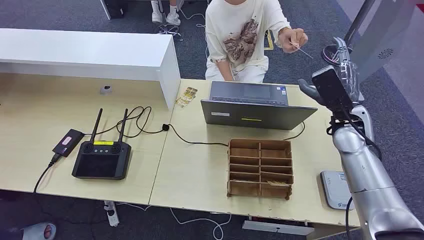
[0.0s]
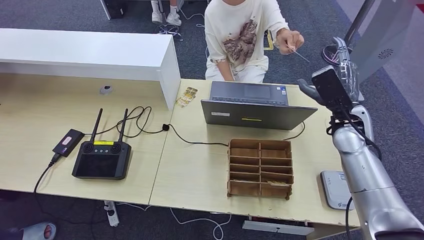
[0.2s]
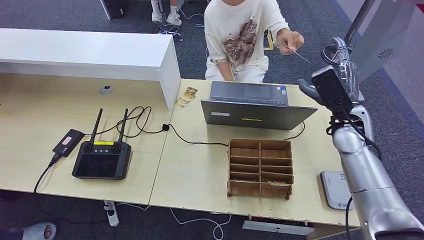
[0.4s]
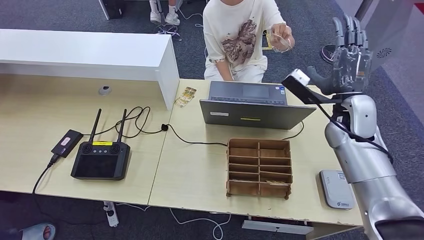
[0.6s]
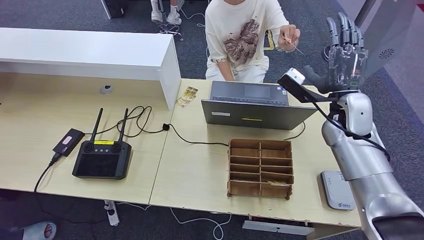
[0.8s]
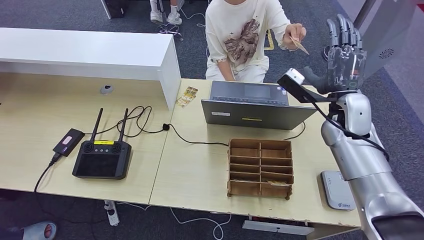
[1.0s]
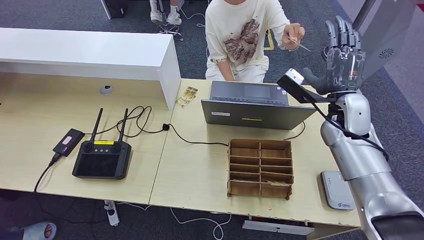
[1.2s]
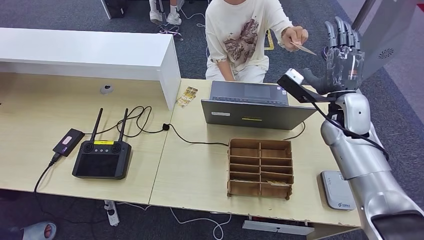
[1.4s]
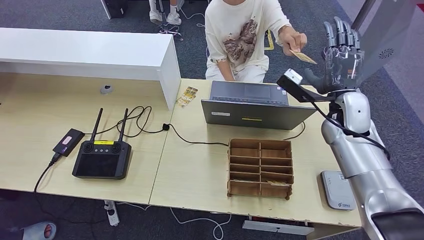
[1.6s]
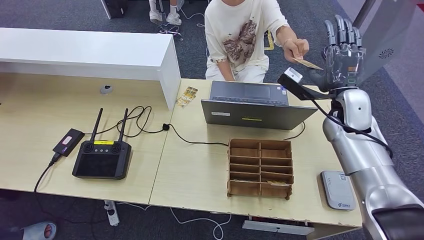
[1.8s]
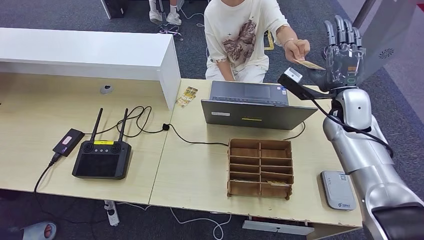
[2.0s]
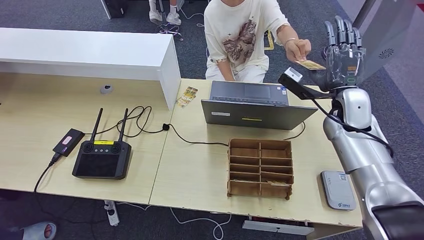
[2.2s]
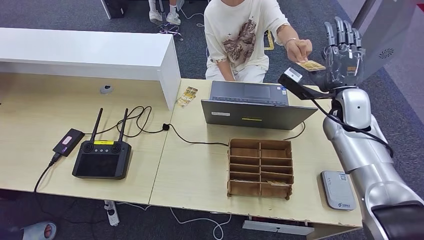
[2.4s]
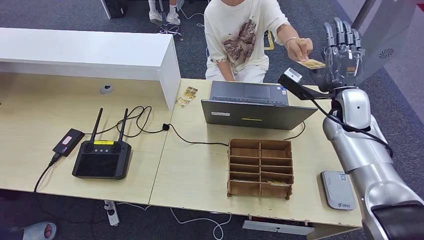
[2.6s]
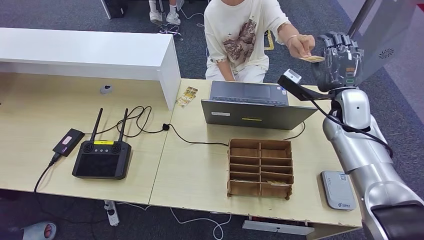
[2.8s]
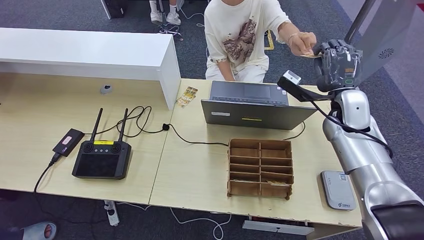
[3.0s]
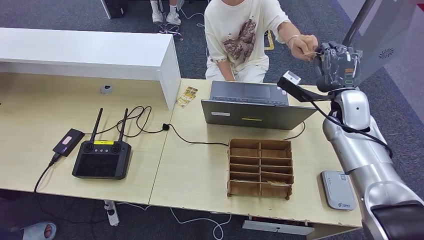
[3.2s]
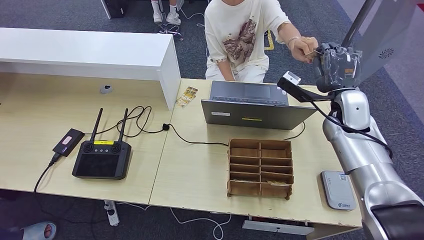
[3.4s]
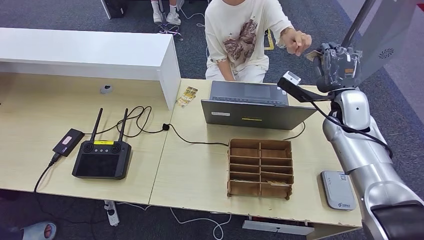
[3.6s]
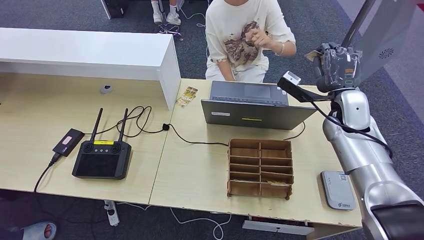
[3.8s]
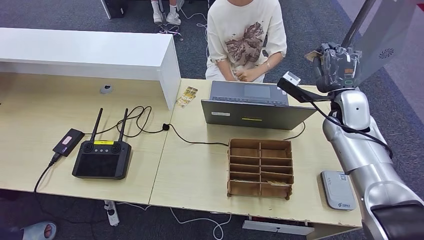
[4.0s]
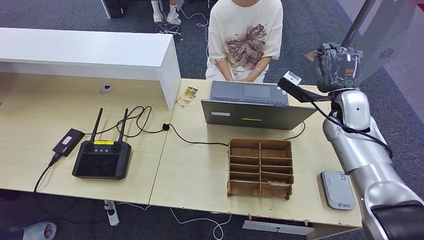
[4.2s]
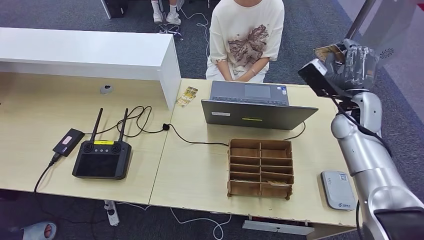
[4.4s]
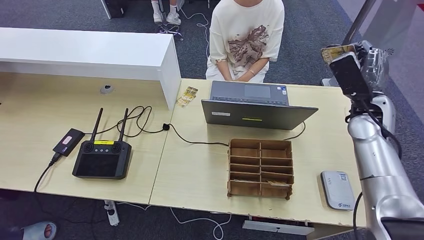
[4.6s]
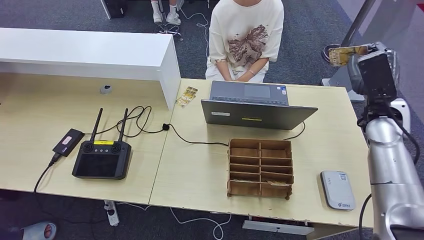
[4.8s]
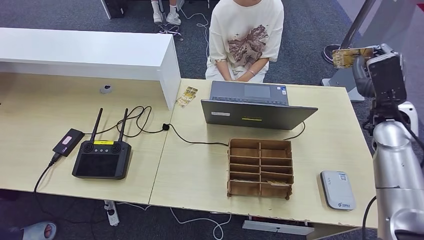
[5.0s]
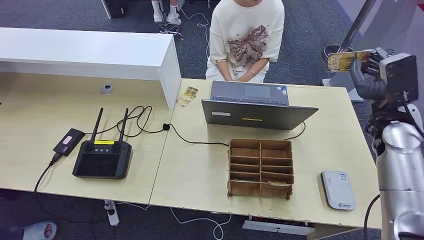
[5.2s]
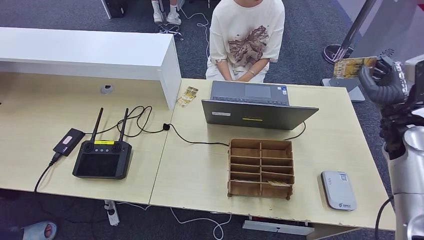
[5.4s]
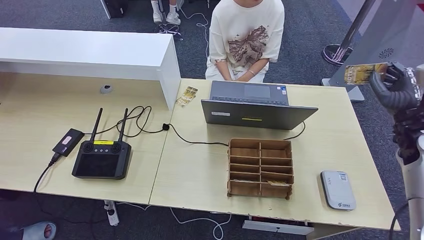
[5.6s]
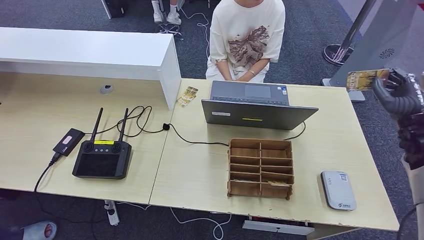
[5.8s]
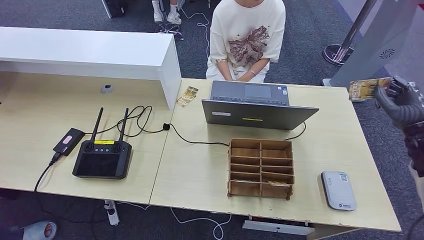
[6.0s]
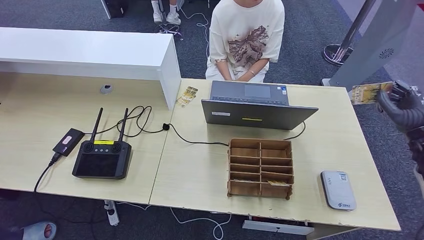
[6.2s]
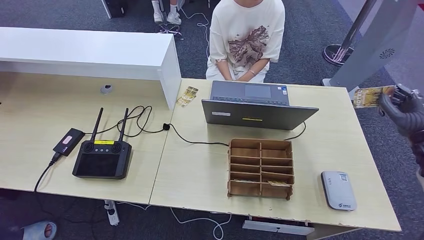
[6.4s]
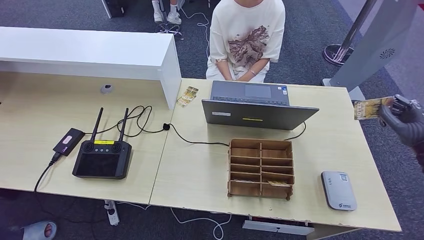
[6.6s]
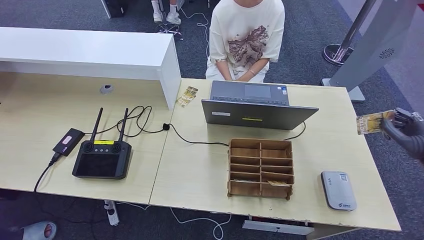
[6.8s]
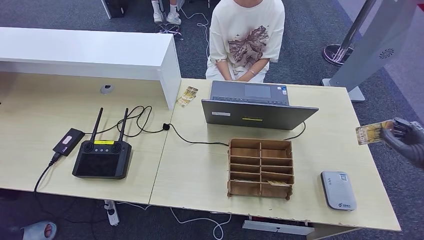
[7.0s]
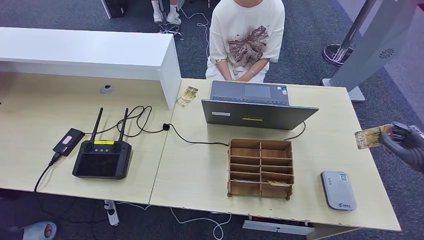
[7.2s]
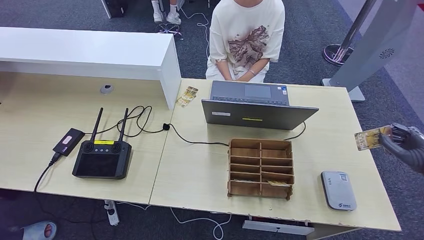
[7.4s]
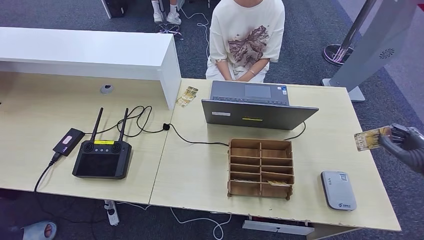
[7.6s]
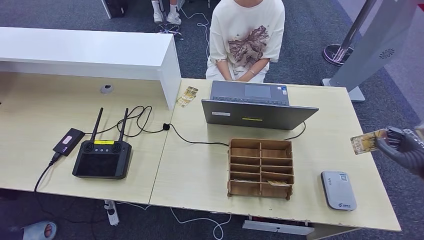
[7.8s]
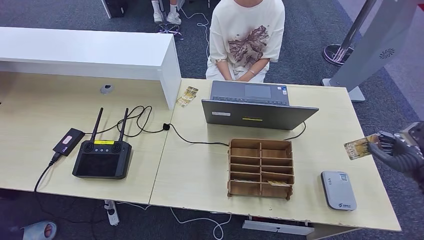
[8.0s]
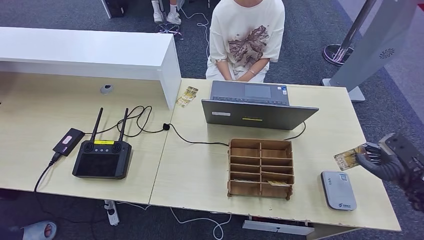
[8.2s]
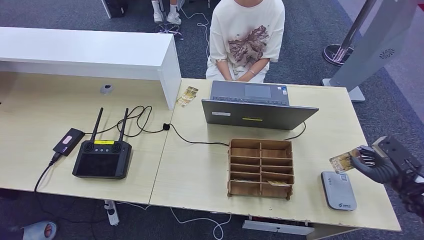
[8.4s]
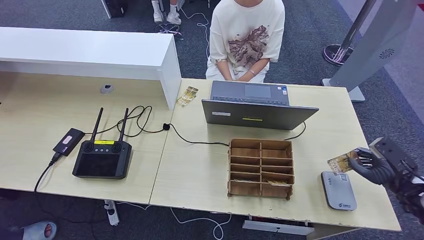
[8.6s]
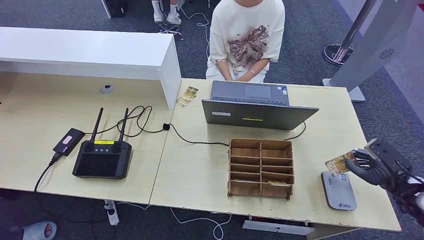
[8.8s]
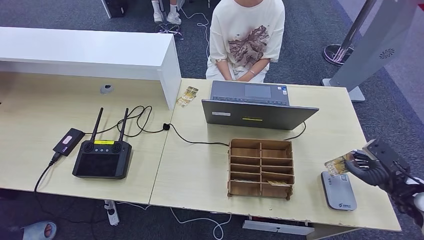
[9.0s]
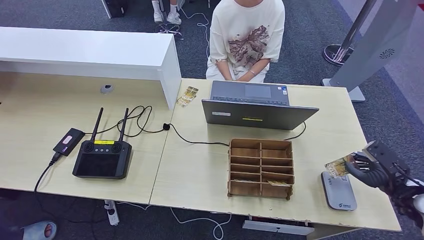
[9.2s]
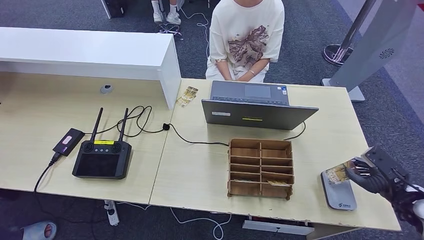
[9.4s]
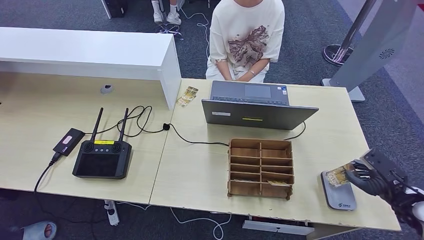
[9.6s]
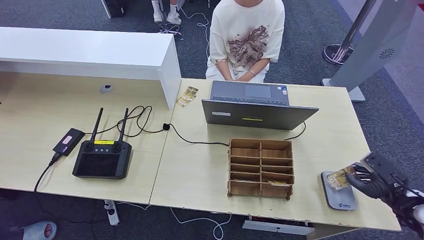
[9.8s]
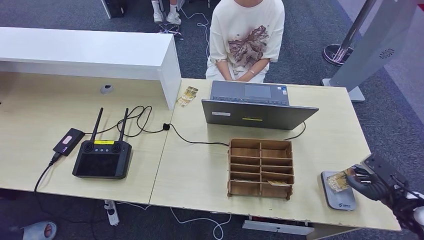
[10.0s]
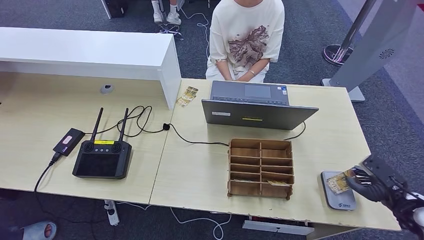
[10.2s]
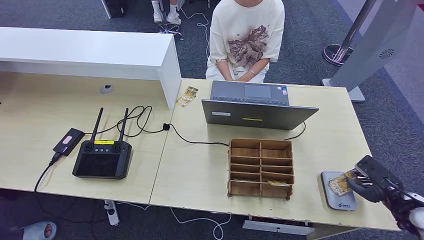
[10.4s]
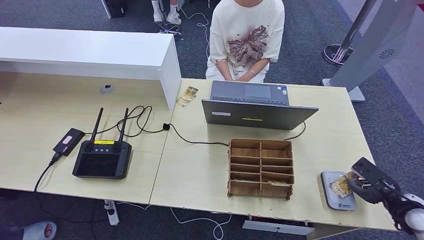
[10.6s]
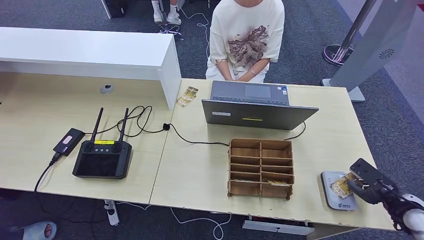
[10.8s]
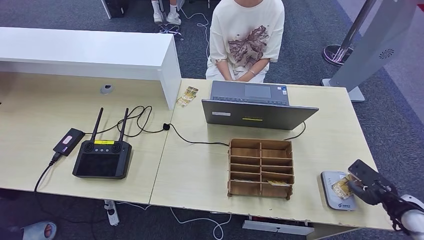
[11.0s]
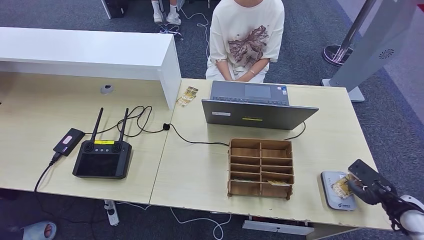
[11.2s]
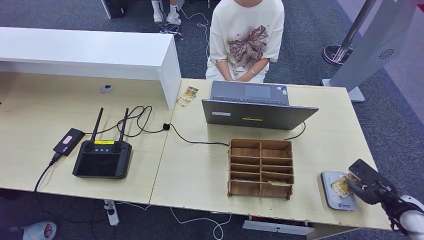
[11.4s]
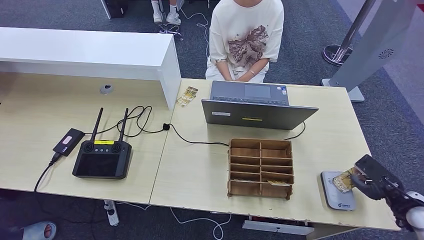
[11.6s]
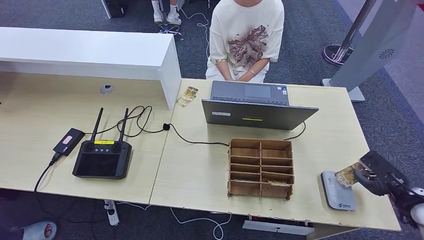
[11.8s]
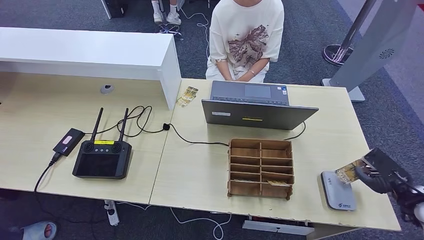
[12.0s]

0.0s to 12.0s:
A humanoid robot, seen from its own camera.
Step, 0.0s to 3.6s: Take the ID card from the person's hand.
Step, 3.8s to 11.4s: Place the ID card on the card reader.
1.6s to 4.4s: The hands make only small movements.
4.4s to 6.0s: The right hand moves to the right and backward, about 15 cm.
6.0s to 7.6s: The right hand heads backward and to the right, covering some 10 cm.
7.6s to 9.0s: The right hand goes approximately 5 cm downward.
9.0s to 10.4s: The hands make only small movements.
10.4s to 12.0s: The hands make only small movements.

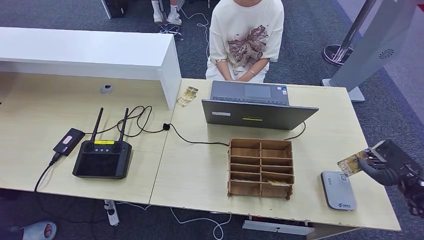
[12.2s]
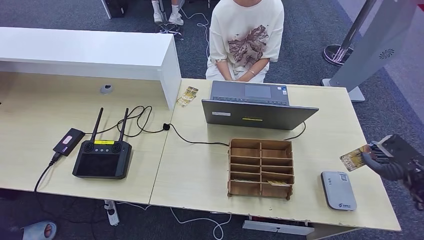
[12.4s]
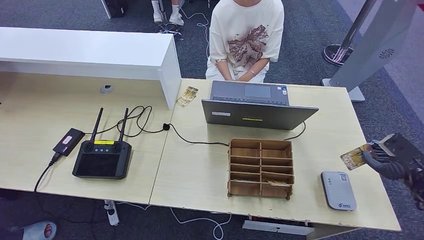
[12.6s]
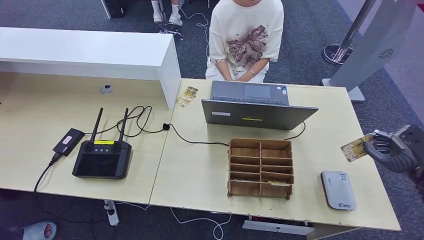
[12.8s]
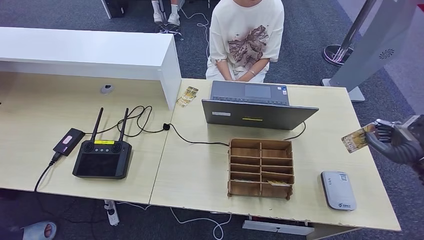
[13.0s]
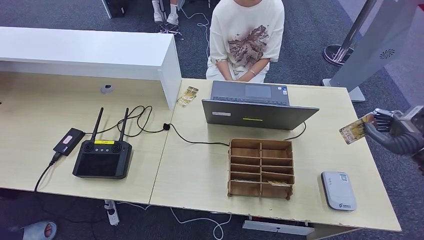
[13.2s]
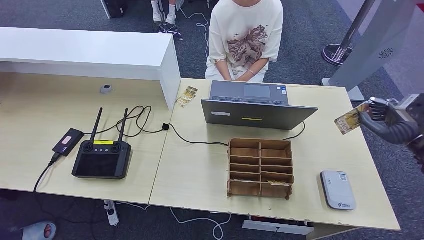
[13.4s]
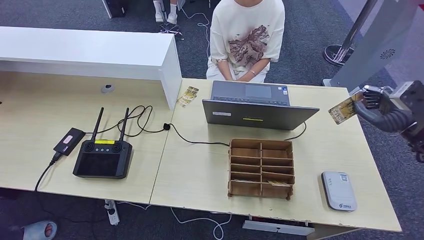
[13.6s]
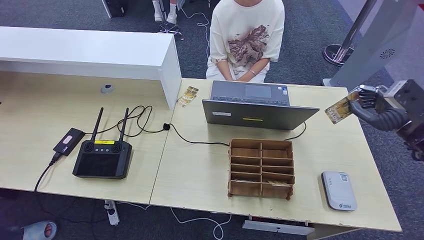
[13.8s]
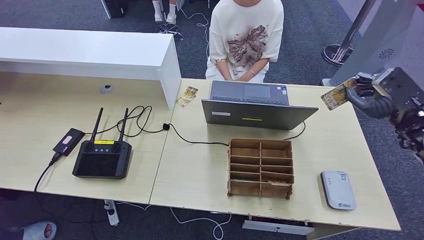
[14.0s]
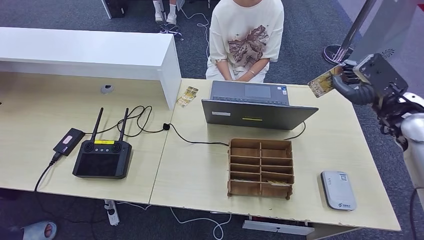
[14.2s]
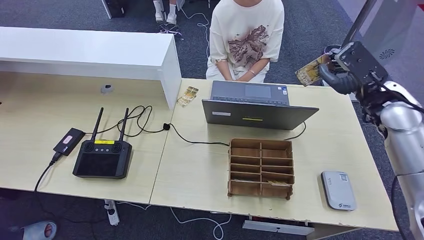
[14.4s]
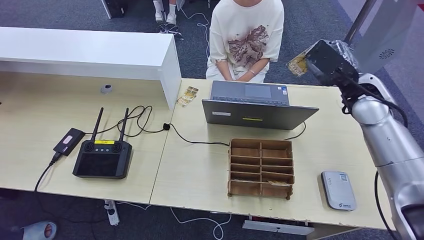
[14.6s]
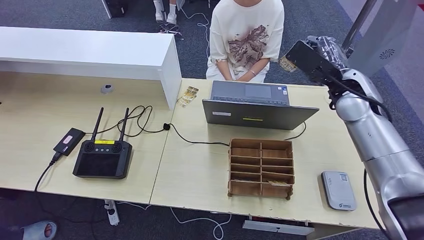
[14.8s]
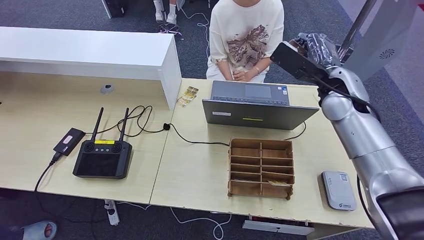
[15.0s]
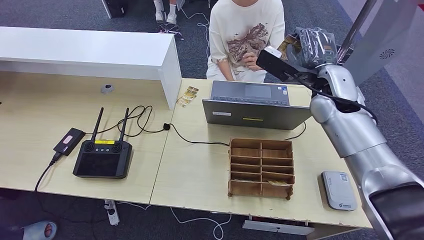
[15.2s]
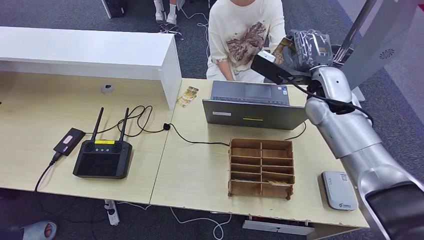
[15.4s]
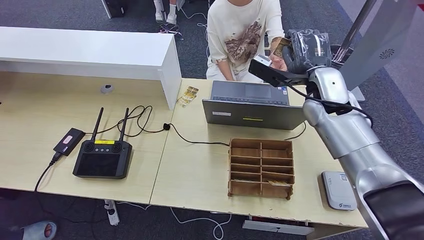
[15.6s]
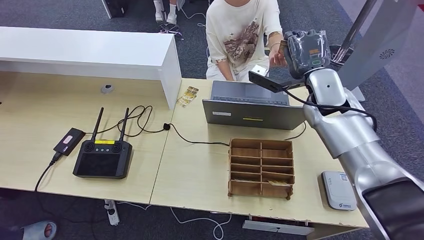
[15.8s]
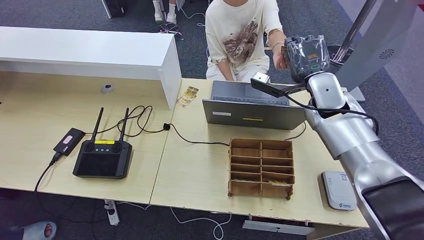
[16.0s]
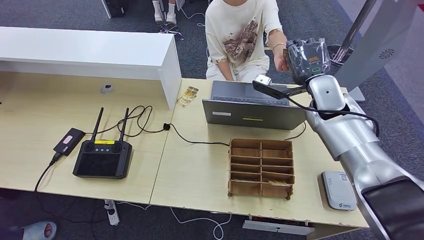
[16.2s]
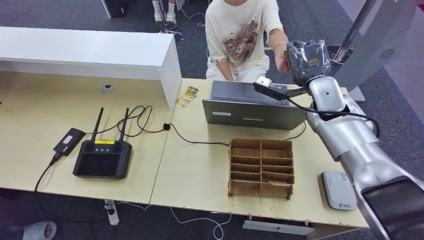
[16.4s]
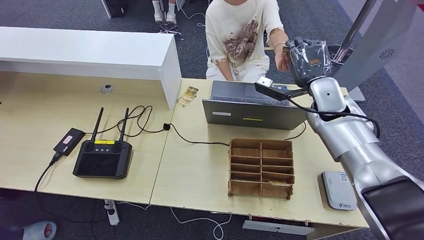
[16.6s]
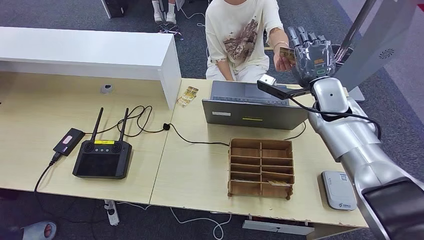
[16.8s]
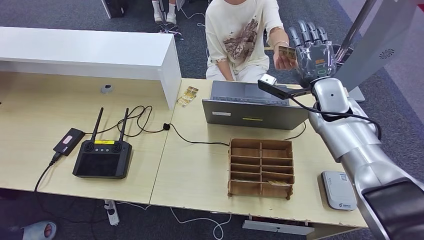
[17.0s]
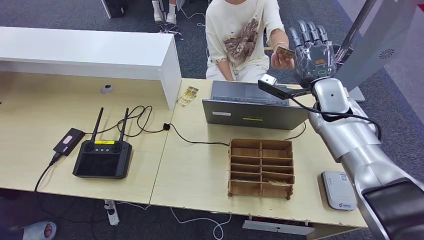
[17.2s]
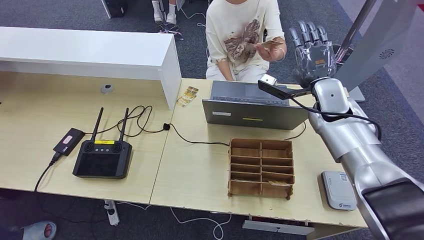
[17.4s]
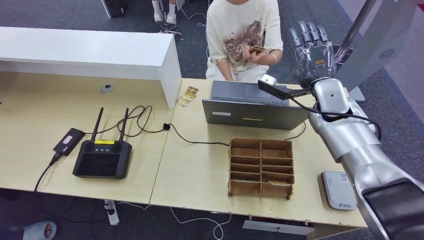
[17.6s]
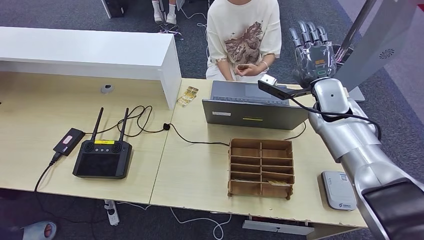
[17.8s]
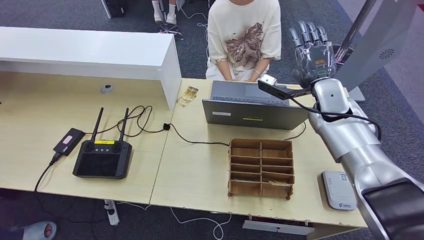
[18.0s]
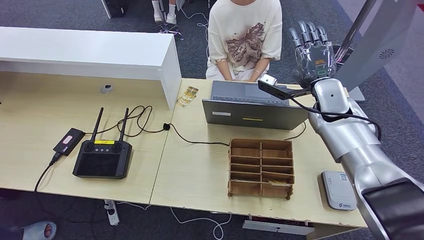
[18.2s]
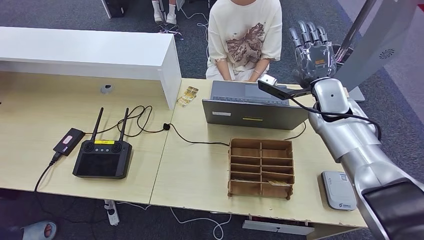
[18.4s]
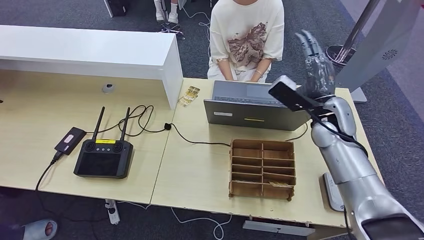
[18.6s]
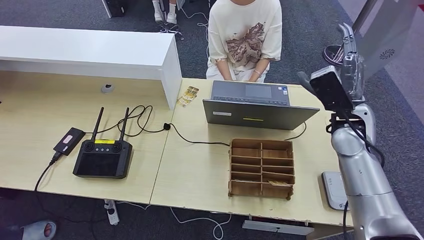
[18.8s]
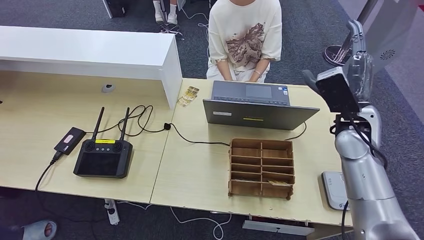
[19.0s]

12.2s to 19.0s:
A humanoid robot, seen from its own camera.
Step, 12.2s to 18.8s: Hand the ID card to the person.
12.2s to 13.6s: The right hand shifts roughly 15 cm upward and forward.
13.6s to 15.0s: The right hand heads to the left and forward, covering about 25 cm.
16.2s to 17.6s: The hands stay close to where they were, moving slightly.
17.6s to 19.0s: The right hand heads backward, covering roughly 10 cm.
